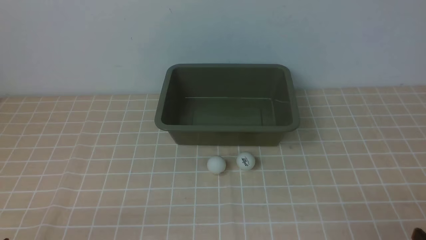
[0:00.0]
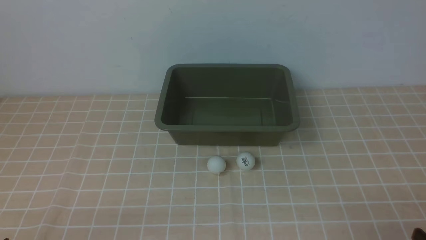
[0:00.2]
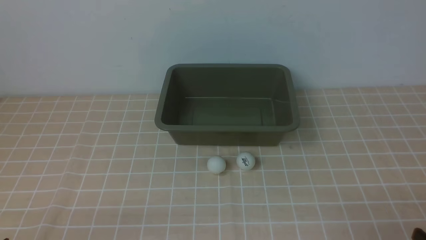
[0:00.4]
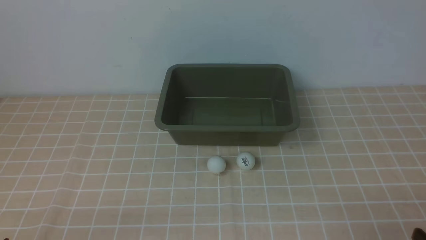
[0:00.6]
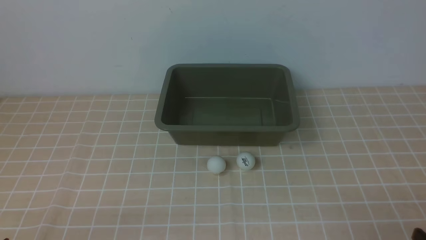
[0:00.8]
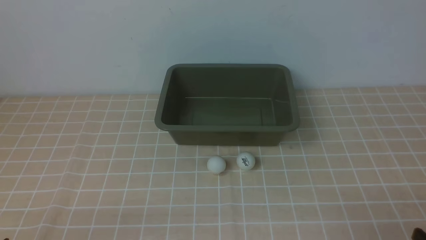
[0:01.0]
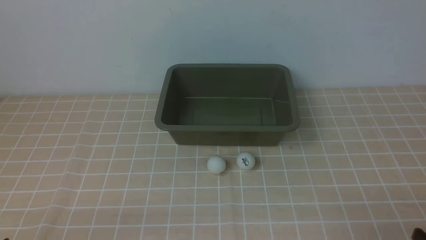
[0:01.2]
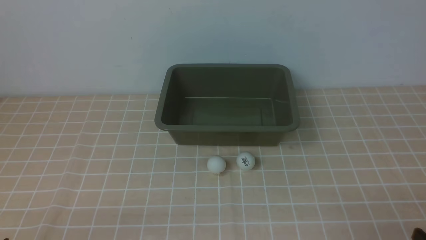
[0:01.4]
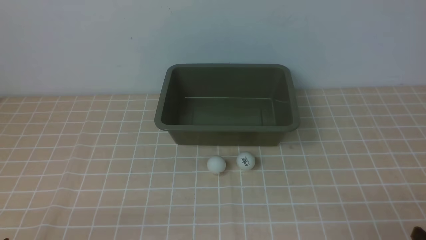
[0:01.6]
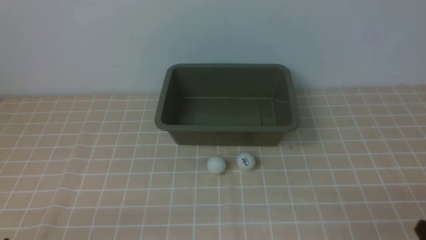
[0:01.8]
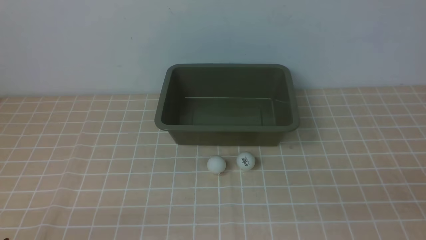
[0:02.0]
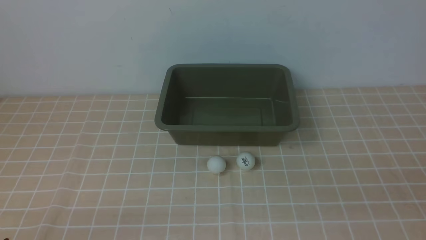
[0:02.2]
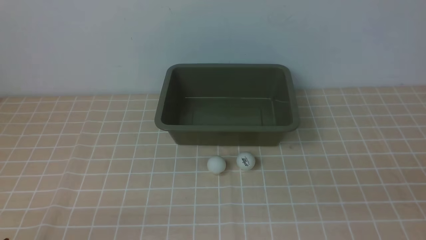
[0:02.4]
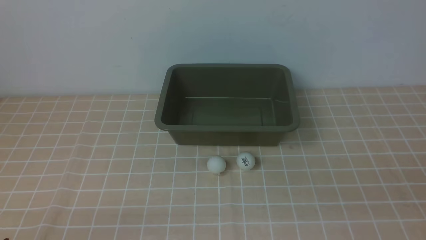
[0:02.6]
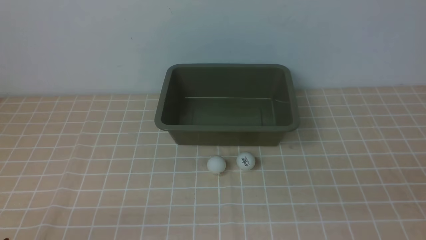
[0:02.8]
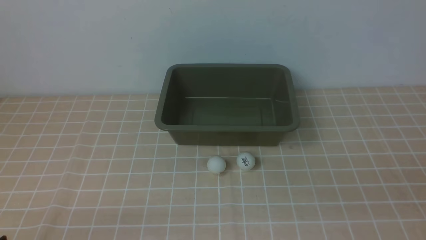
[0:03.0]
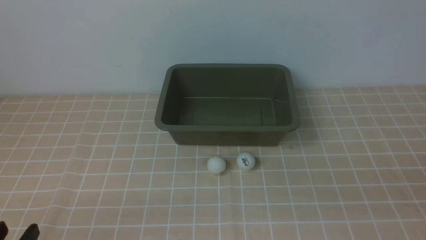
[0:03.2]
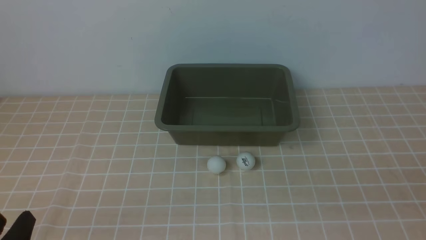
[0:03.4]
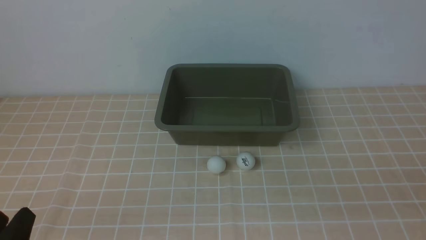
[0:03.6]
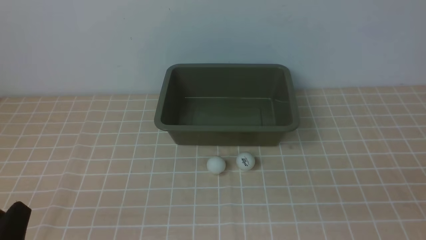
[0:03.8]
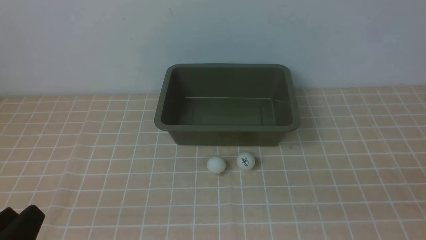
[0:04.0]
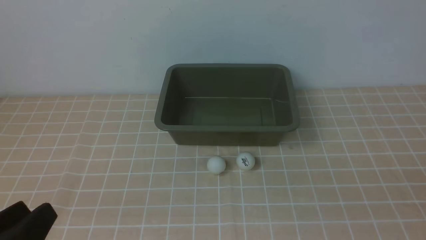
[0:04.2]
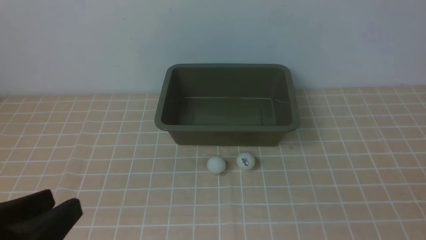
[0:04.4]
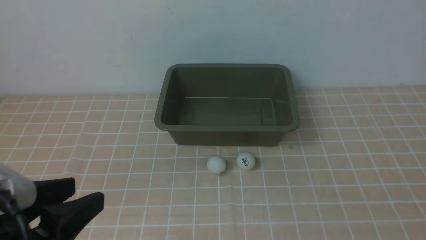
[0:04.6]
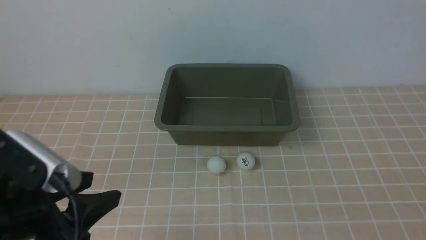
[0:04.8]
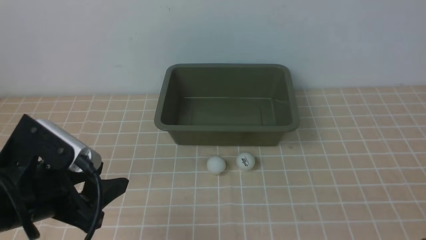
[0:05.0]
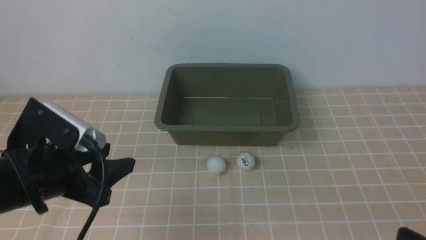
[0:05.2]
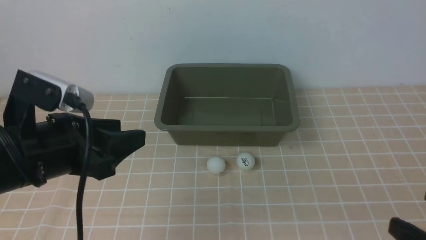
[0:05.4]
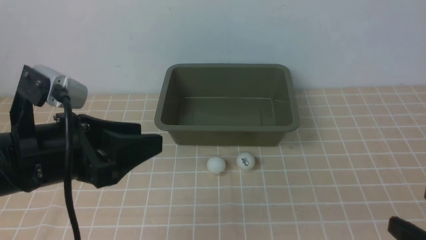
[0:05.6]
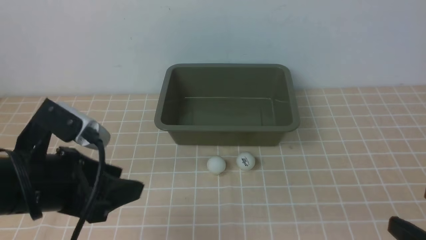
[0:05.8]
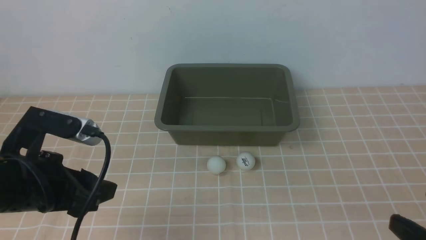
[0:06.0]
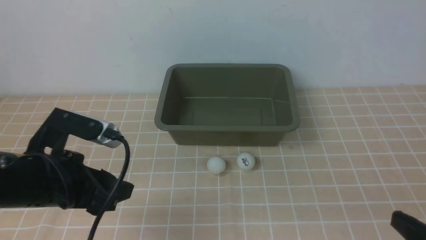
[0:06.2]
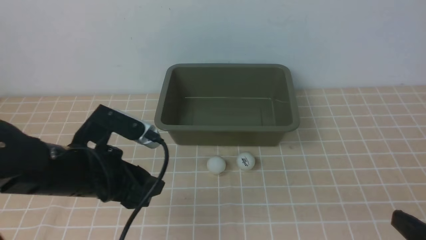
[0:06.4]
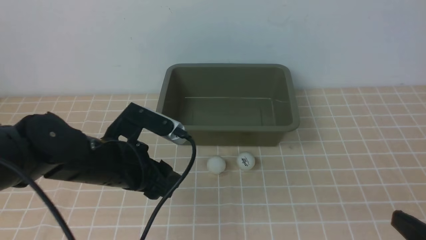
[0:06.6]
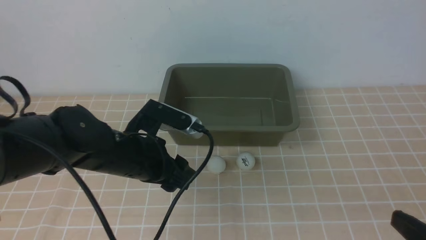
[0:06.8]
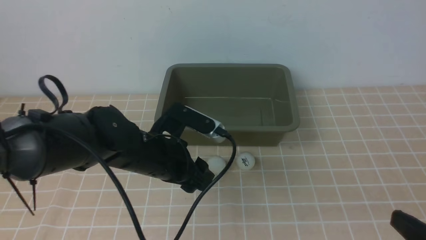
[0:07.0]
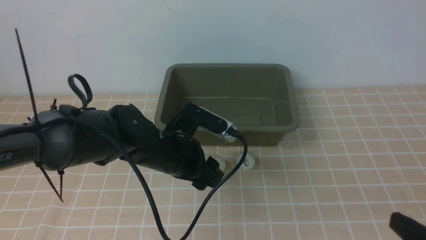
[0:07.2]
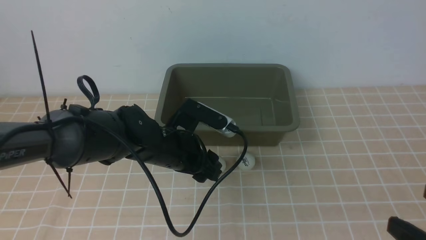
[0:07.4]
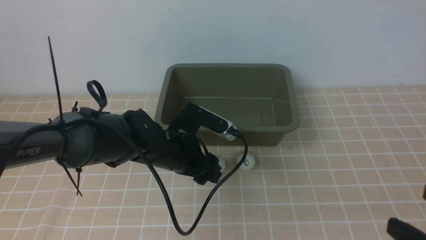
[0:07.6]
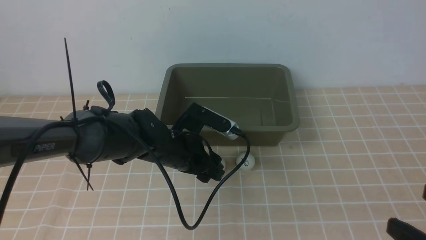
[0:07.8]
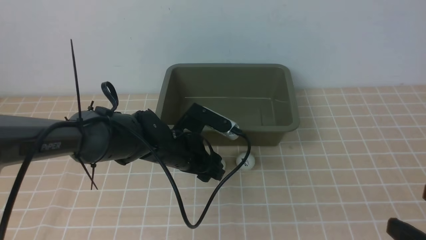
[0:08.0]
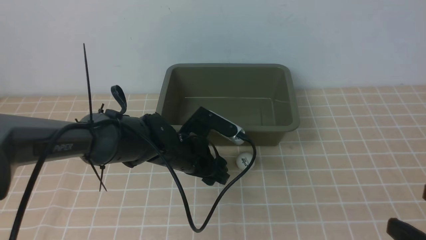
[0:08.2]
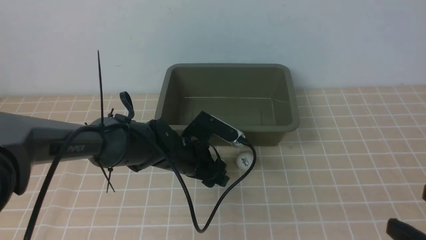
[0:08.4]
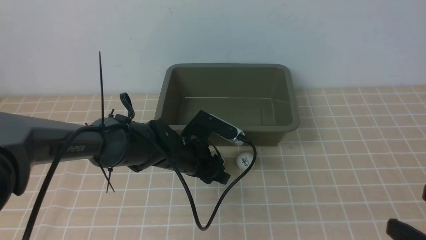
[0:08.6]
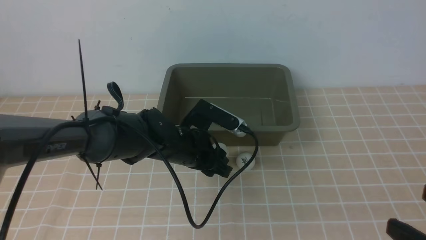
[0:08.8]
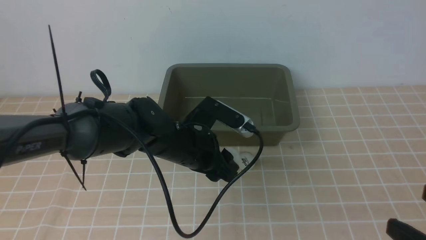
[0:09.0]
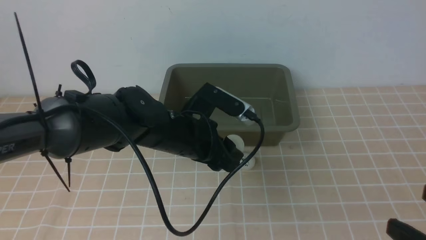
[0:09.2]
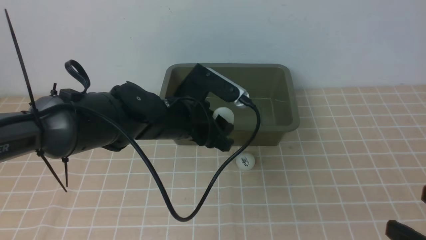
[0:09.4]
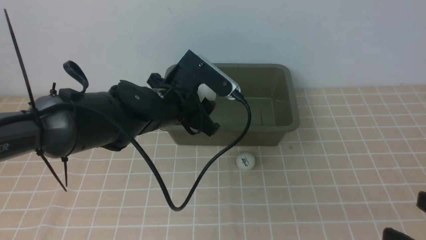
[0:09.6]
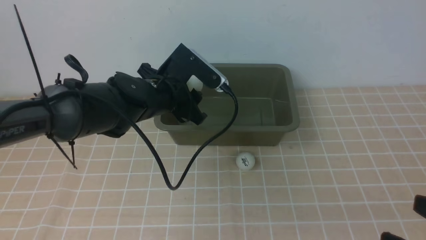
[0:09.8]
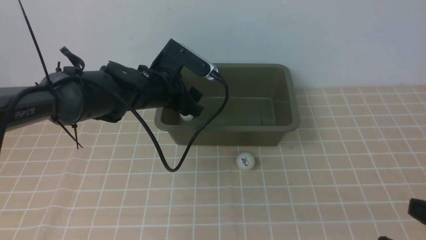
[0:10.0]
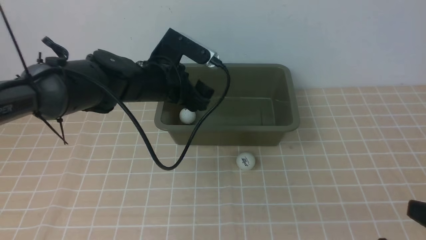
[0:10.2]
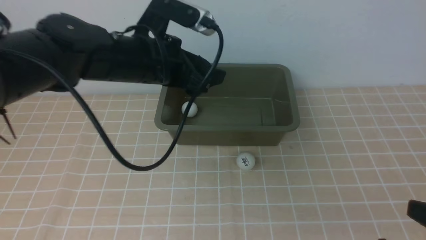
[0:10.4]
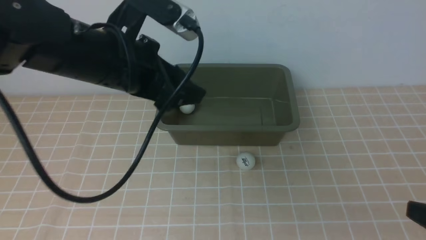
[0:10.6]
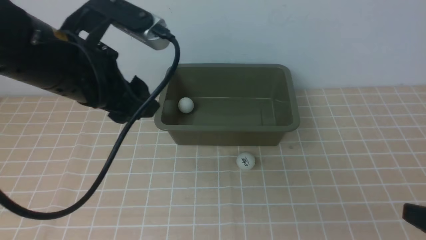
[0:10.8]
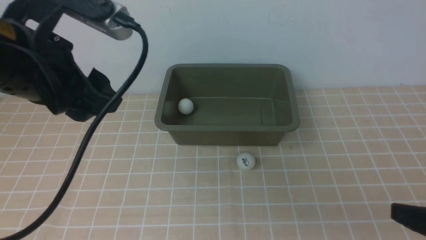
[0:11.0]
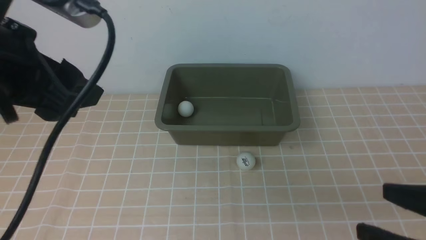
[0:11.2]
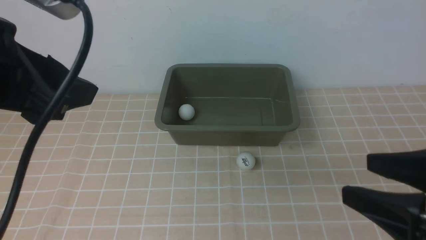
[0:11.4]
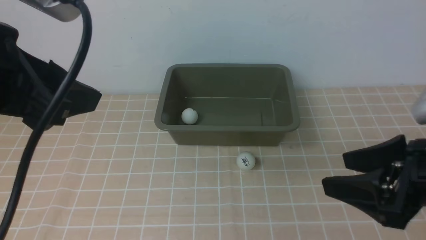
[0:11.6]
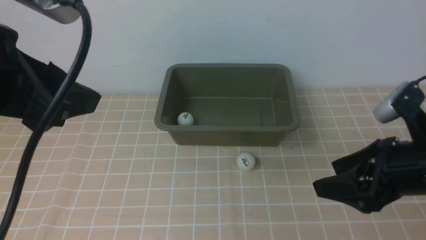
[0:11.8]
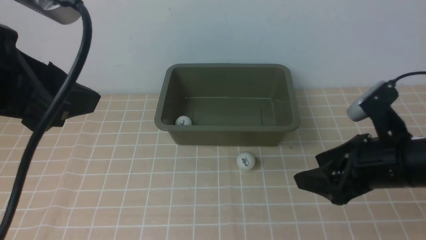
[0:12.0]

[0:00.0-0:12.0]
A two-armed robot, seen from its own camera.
Step, 0:00.0 to 0:09.0: use the left arm to clamp the table tennis ball closest to it.
Step, 0:09.2 to 0:10.2: use the left arm to put the table tennis ball into the box.
0:00.0 to 0:01.6: Both grippers stay put.
0:03.0 to 0:04.4: The left gripper shifts approximately 10 cm upward.
0:04.4 to 0:06.0: The left gripper moves forward, about 10 cm, and opens.
0:06.0 to 0:07.6: The left gripper heads to the right, forward and downward, covering about 20 cm.
0:07.6 to 0:09.0: The left gripper closes up.
0:09.0 to 0:10.4: The left gripper heads upward and to the left, covering some 15 cm, and opens.
0:10.4 to 0:12.0: The left gripper is displaced backward, upward and to the left by about 20 cm; the right gripper goes some 20 cm forward.

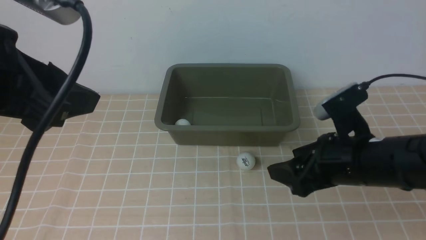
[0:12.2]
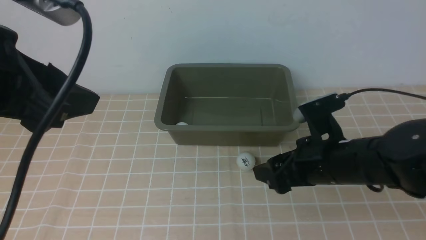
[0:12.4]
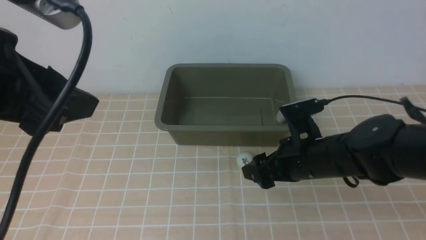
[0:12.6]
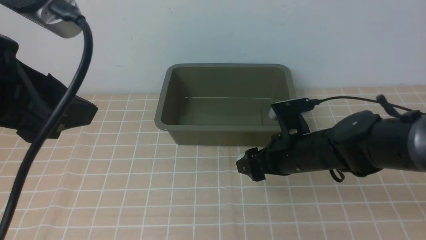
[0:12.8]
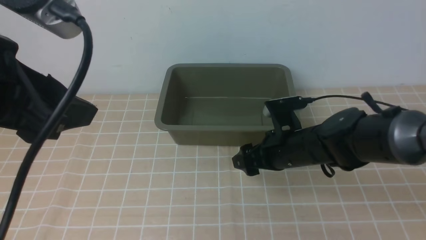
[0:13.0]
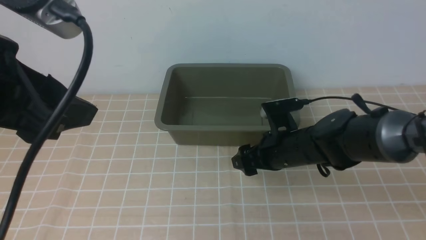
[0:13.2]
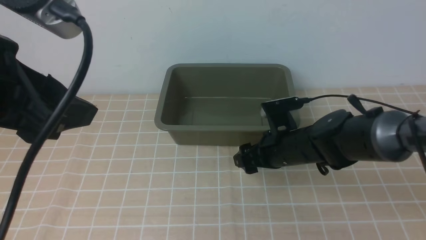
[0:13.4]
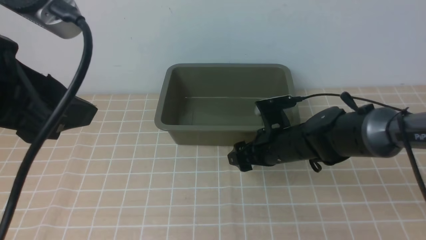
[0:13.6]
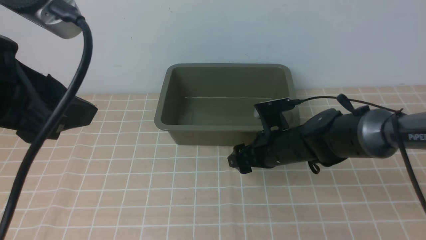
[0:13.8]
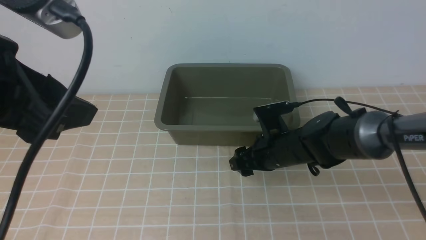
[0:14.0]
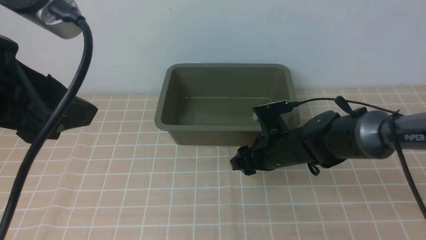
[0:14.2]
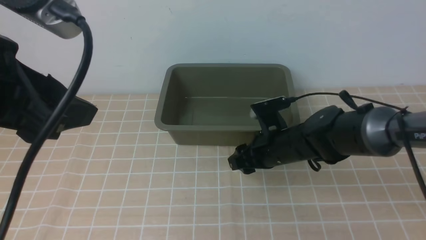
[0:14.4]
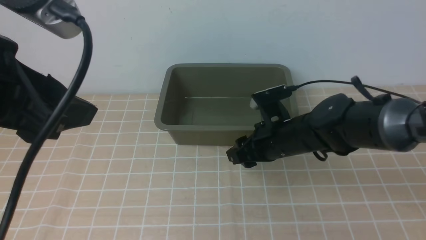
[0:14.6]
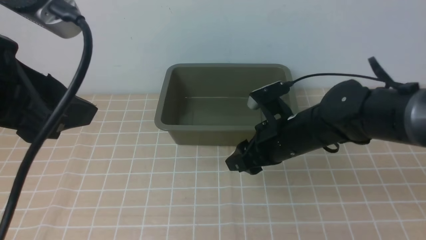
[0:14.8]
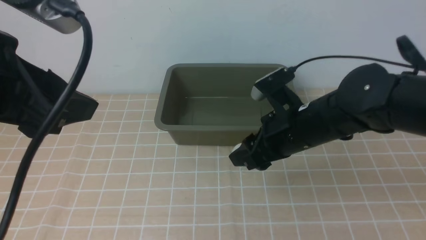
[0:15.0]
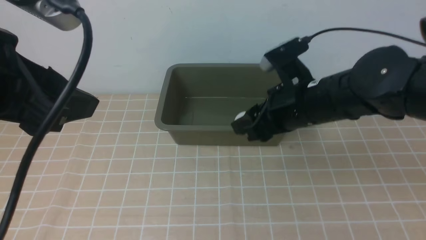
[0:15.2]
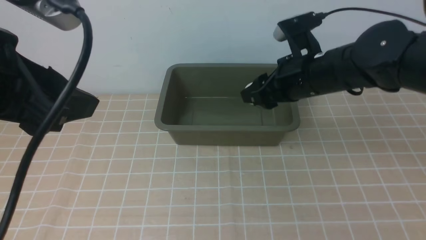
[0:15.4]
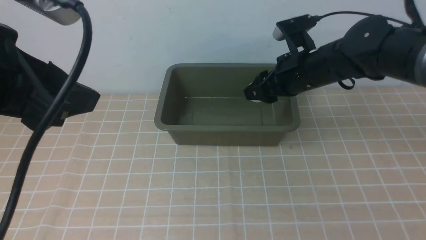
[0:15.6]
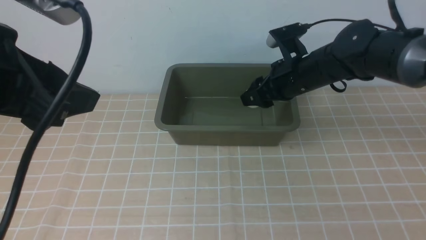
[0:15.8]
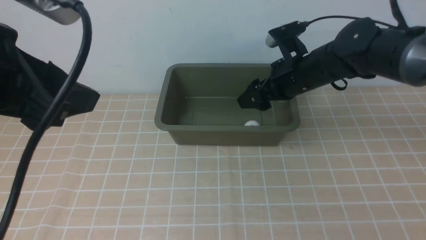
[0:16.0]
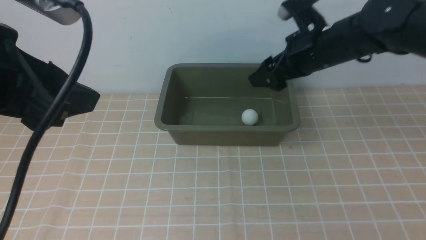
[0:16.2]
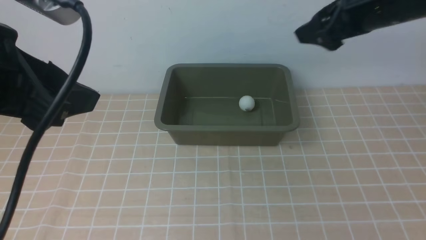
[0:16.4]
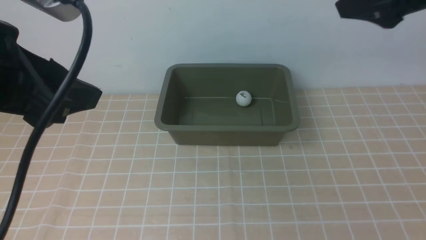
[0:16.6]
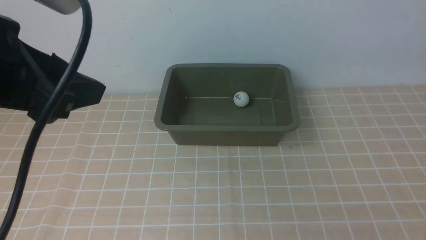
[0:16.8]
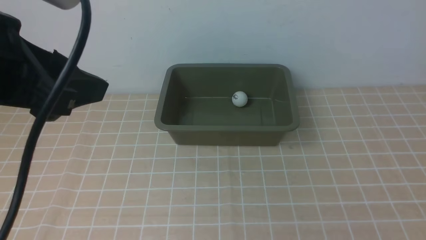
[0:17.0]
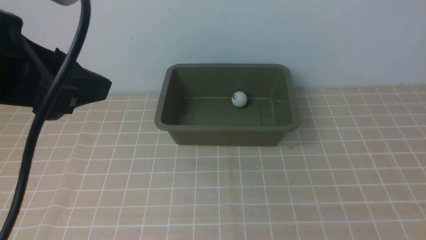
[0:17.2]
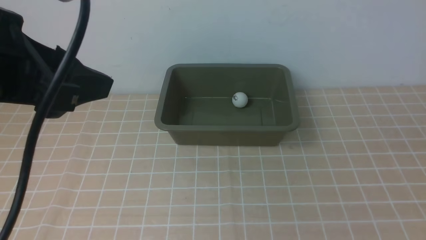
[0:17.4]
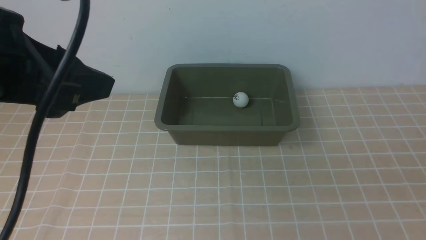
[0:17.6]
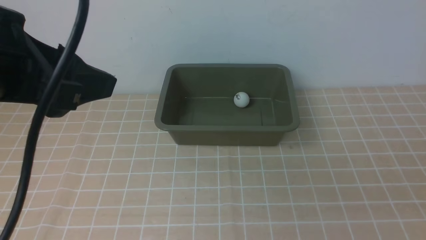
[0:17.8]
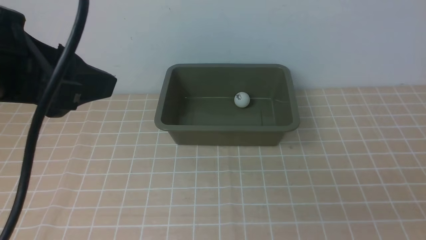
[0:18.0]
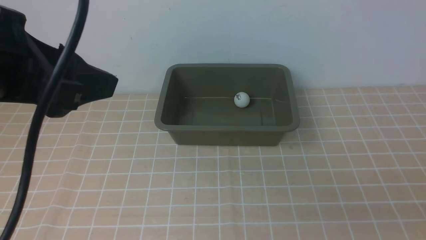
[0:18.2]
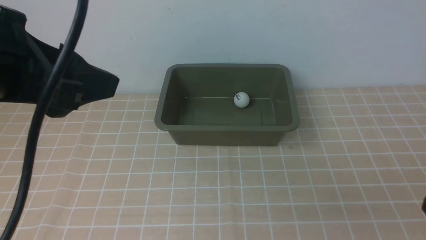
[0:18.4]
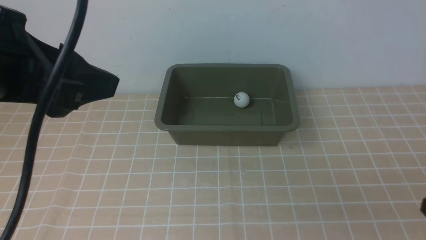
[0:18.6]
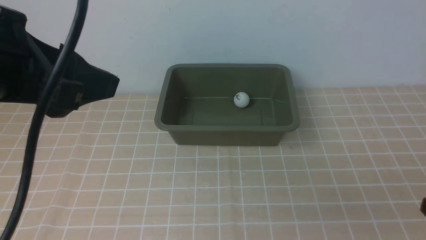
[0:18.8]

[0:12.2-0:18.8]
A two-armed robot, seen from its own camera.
Step, 0:12.2 to 0:14.8: use the right arm to clamp the table tennis ball closest to it.
Step, 0:15.0 to 0:16.0: use the right arm to put the table tennis ball into the box.
0:12.2 to 0:13.8: The right gripper is displaced forward, downward and to the left by roughly 15 cm.
0:13.8 to 0:15.4: The right gripper shifts about 15 cm upward, and closes.
0:15.4 to 0:17.2: The right gripper is displaced backward, upward and to the right by about 35 cm, and opens.
